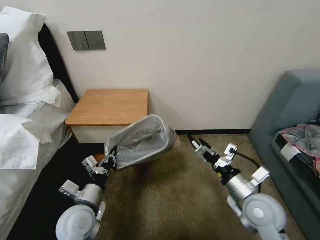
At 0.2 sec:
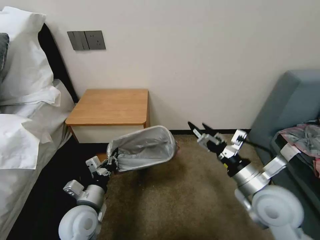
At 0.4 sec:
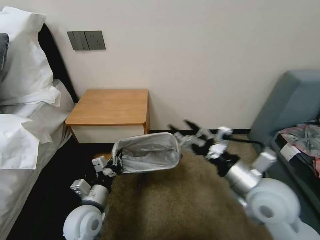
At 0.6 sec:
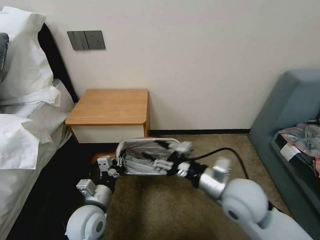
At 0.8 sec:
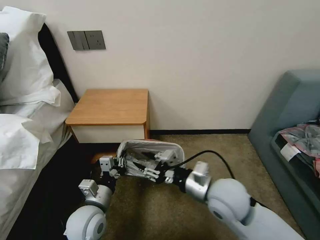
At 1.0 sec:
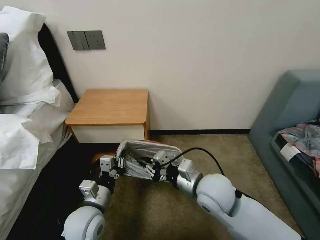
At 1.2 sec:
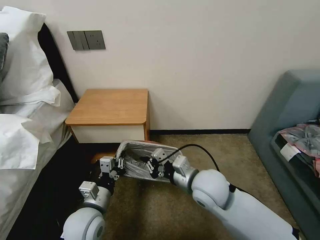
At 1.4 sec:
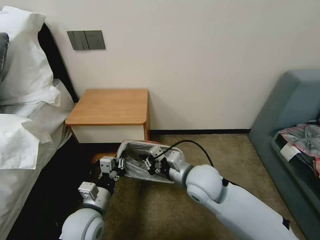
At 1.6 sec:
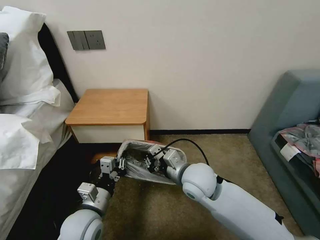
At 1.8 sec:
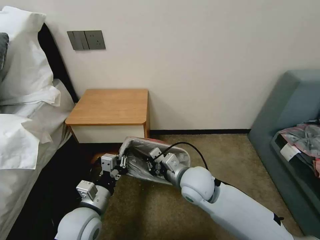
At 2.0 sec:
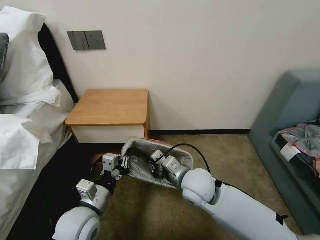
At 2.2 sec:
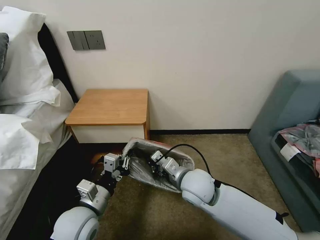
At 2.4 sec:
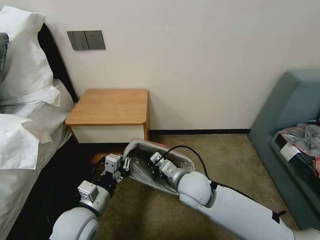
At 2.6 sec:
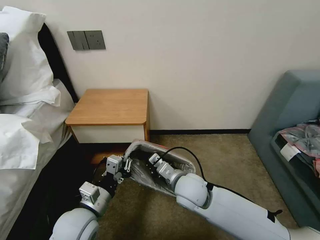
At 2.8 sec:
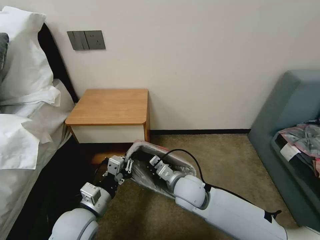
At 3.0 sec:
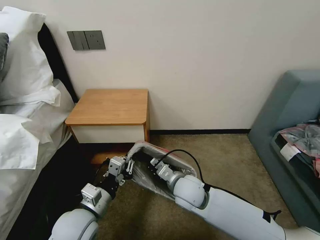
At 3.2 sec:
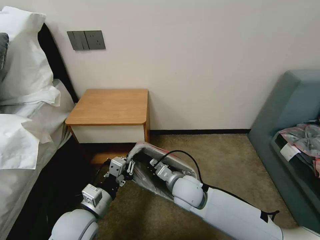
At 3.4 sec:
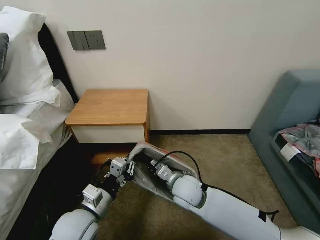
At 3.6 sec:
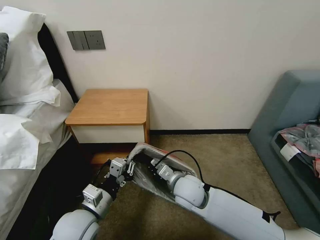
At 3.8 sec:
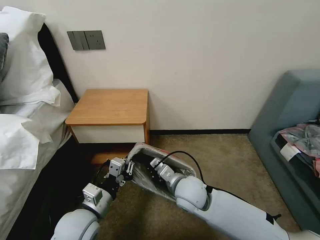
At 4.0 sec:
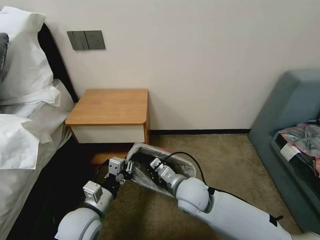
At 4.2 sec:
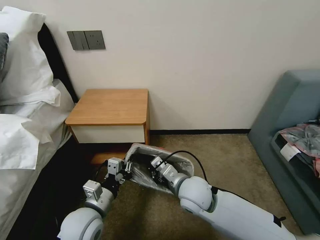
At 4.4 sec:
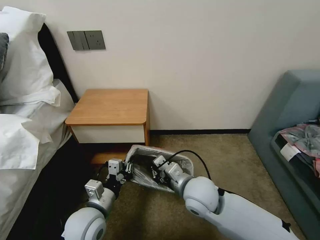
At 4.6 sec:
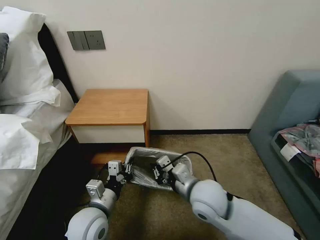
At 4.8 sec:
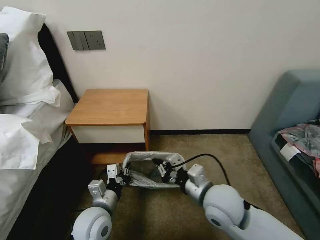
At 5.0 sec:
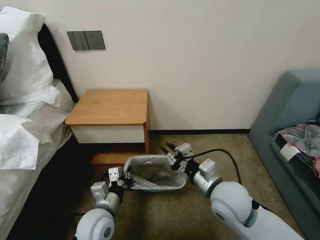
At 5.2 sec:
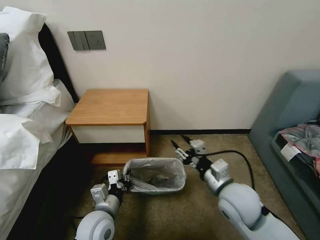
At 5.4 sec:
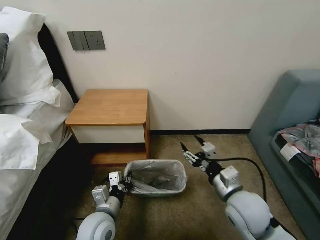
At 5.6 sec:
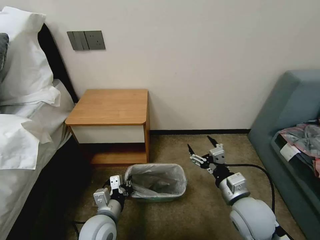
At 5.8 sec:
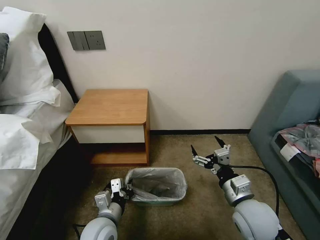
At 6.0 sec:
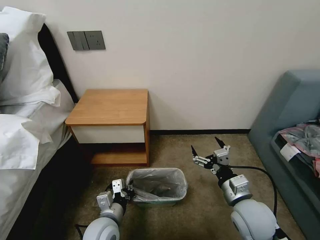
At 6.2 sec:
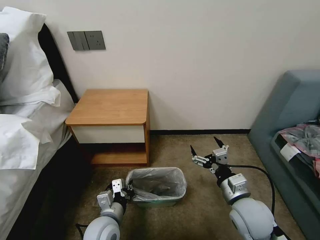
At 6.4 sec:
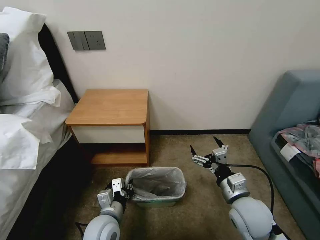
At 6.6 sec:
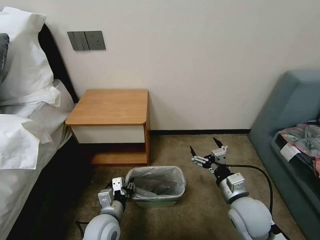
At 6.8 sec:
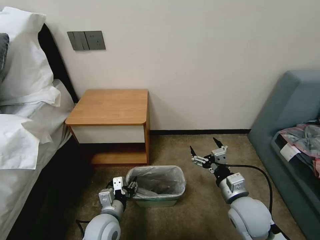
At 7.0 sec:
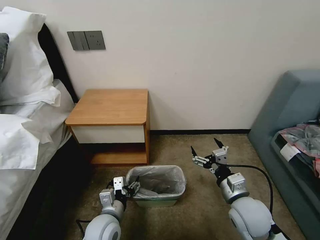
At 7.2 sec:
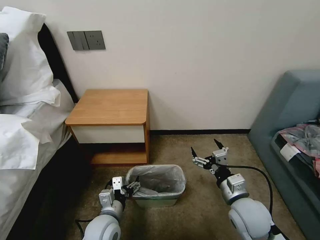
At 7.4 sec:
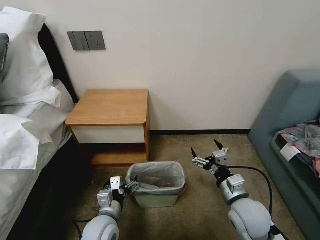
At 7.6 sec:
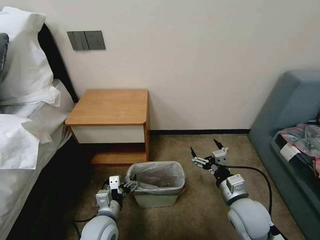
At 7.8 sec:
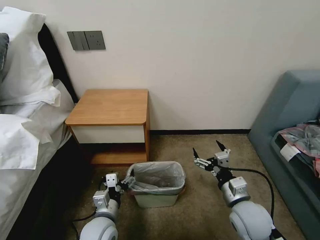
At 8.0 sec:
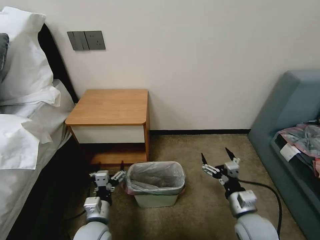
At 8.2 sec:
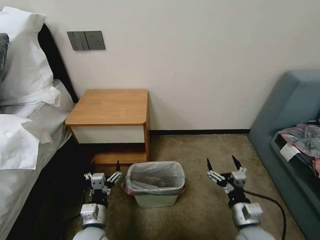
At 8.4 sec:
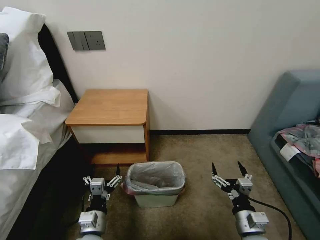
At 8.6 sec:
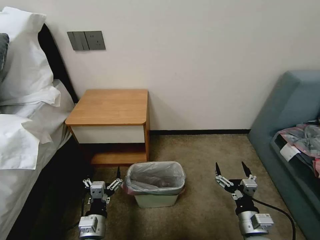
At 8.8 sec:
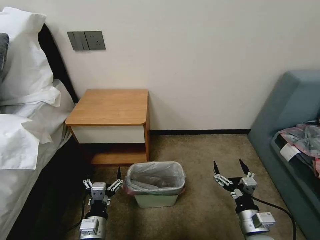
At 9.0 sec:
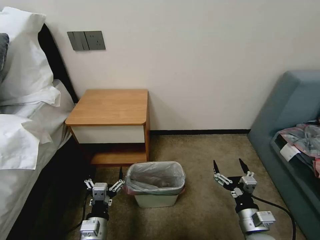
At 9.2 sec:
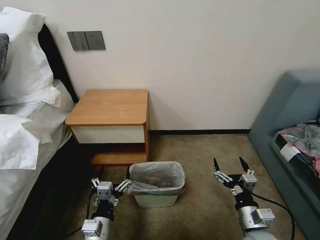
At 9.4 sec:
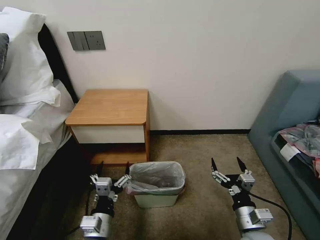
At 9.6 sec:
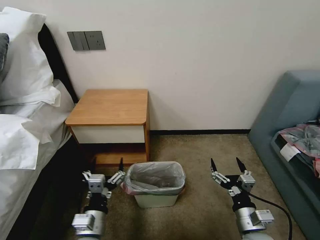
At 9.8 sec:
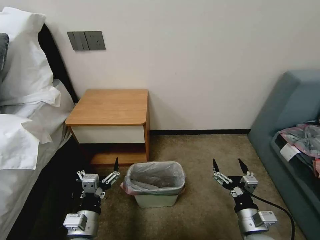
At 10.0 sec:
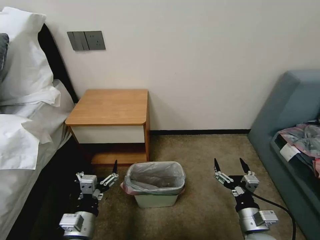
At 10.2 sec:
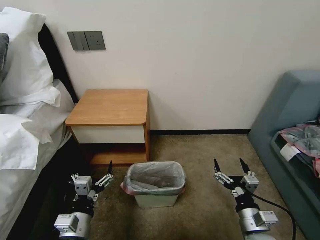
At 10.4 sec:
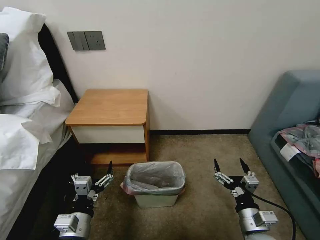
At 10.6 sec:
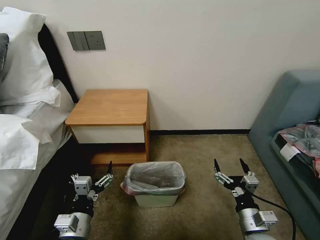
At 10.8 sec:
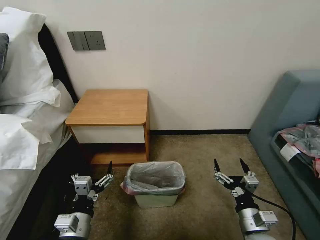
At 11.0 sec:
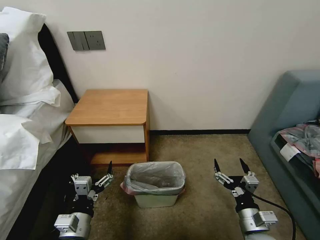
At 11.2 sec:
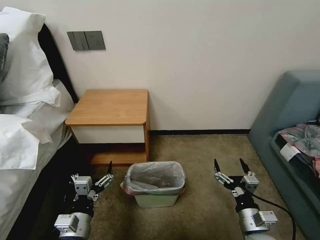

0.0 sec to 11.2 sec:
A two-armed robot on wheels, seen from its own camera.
Task of the whole recording: Pick up the garbage bag from the table and place it over the trash can.
0.0 sec to 1.6 sec: The right gripper is displaced to the left and forward by roughly 20 cm, and closes.
1.6 sec to 3.2 sec: The right gripper heads downward, covering about 5 cm.
3.2 sec to 4.8 sec: The right gripper travels to the right, upward and backward by roughly 10 cm.
4.8 sec to 6.4 sec: The right gripper goes some 10 cm to the right, and opens its fingers.
6.4 sec to 8.0 sec: The left gripper opens up; the right gripper ends up some 5 cm from where it was.
8.0 sec to 9.6 sec: The left gripper changes place by about 5 cm.
9.6 sec to 11.2 sec: There are only small adjustments of the grippers.

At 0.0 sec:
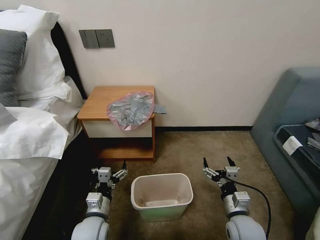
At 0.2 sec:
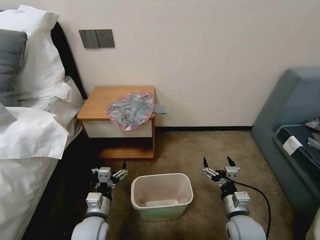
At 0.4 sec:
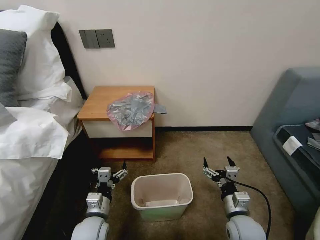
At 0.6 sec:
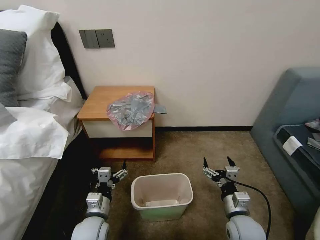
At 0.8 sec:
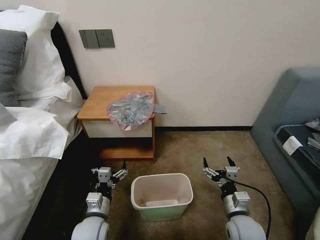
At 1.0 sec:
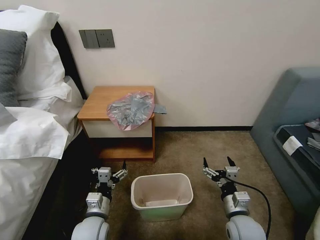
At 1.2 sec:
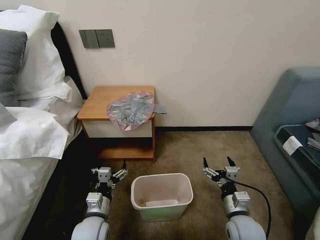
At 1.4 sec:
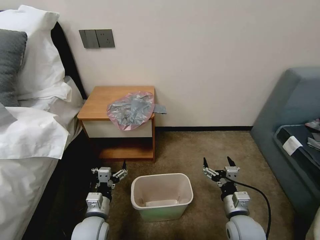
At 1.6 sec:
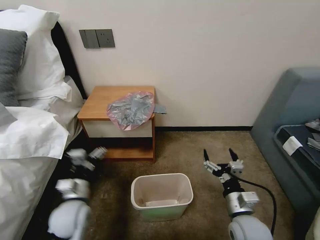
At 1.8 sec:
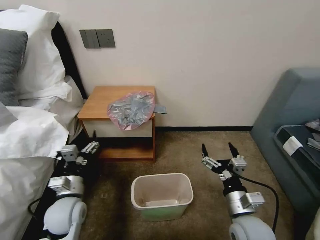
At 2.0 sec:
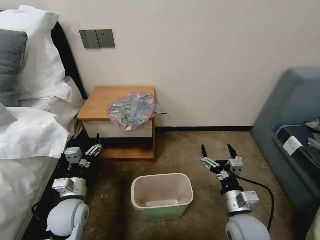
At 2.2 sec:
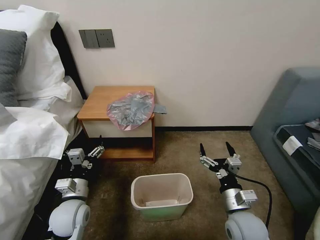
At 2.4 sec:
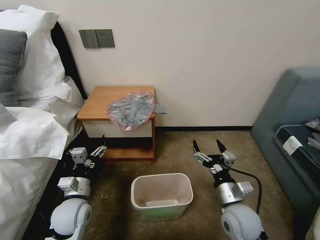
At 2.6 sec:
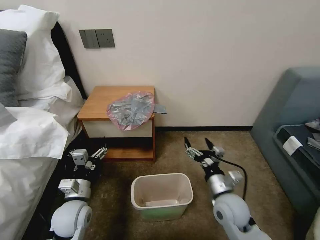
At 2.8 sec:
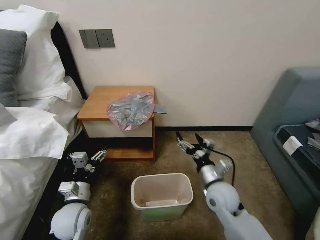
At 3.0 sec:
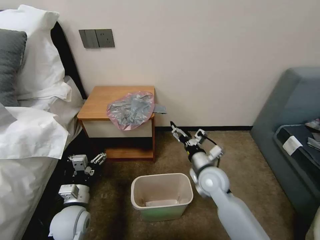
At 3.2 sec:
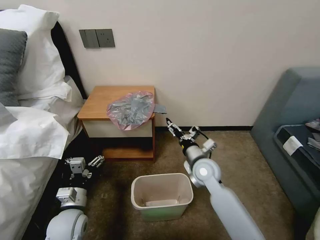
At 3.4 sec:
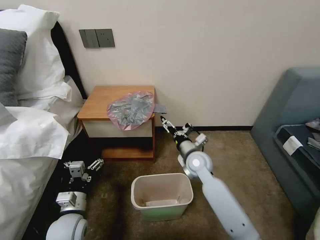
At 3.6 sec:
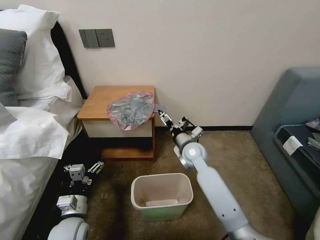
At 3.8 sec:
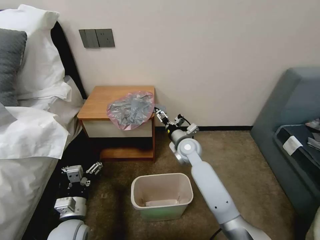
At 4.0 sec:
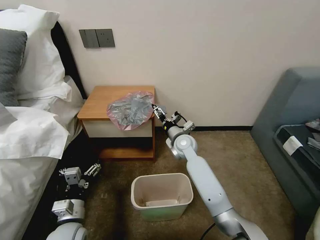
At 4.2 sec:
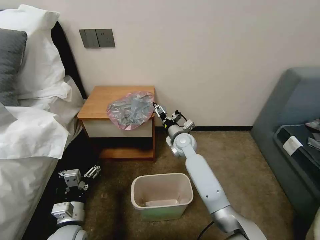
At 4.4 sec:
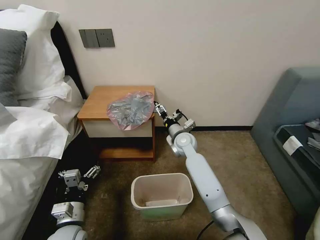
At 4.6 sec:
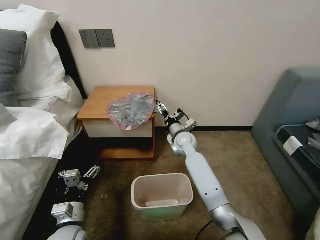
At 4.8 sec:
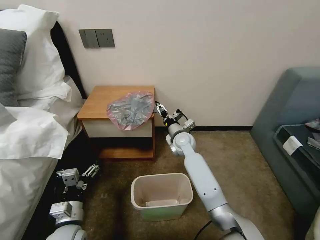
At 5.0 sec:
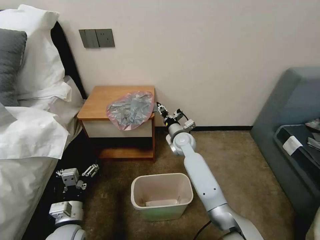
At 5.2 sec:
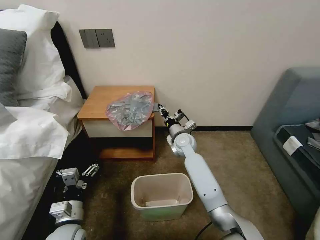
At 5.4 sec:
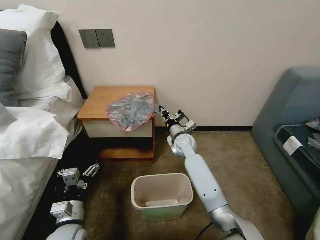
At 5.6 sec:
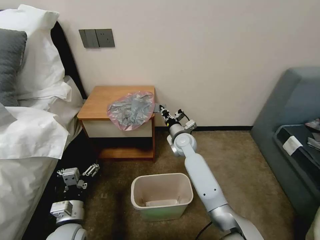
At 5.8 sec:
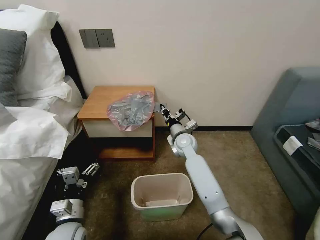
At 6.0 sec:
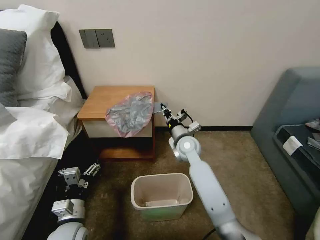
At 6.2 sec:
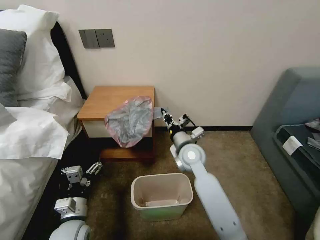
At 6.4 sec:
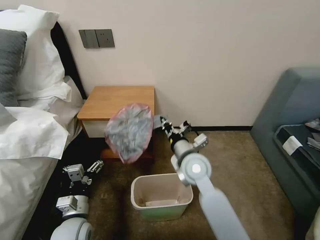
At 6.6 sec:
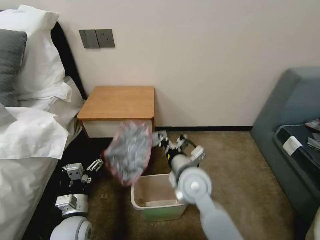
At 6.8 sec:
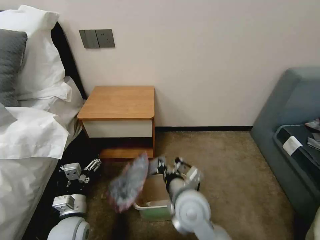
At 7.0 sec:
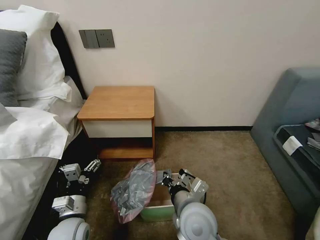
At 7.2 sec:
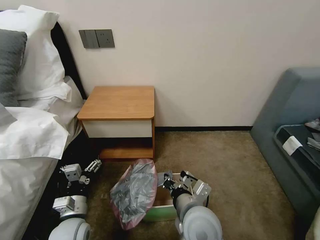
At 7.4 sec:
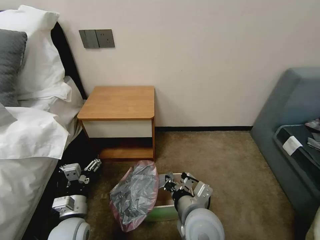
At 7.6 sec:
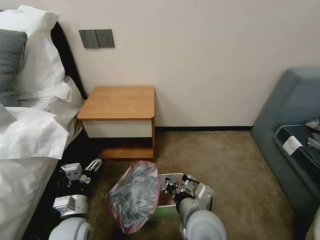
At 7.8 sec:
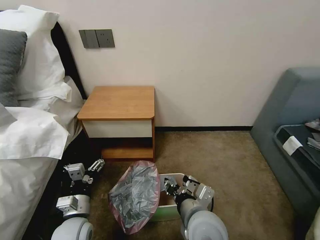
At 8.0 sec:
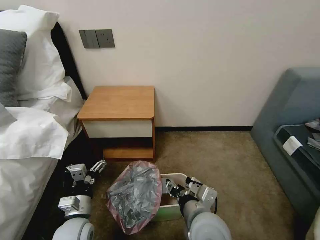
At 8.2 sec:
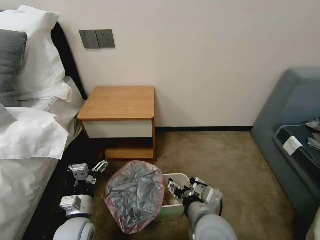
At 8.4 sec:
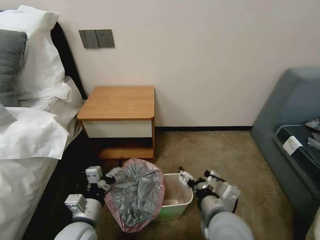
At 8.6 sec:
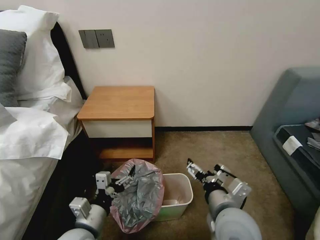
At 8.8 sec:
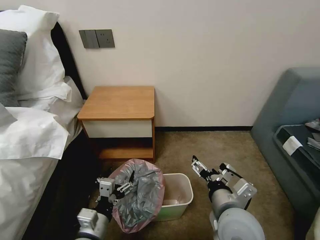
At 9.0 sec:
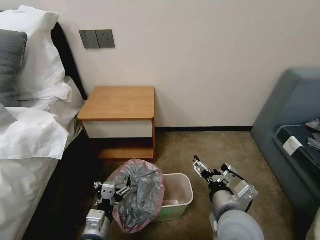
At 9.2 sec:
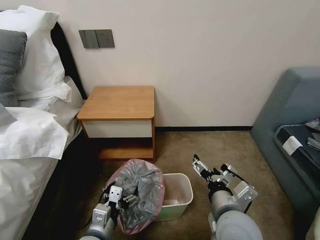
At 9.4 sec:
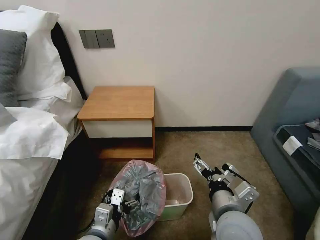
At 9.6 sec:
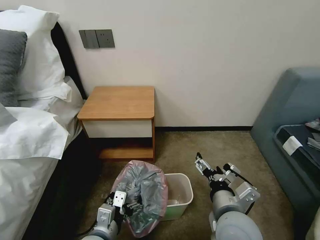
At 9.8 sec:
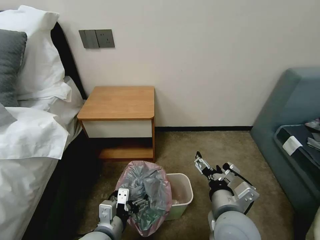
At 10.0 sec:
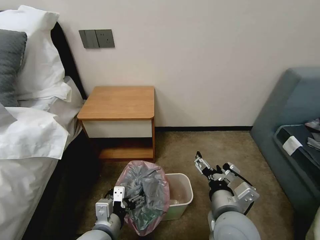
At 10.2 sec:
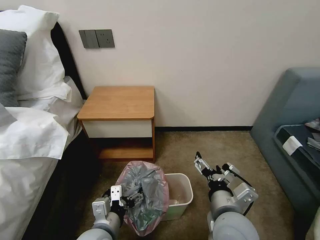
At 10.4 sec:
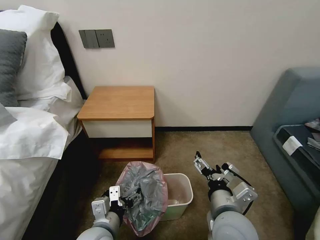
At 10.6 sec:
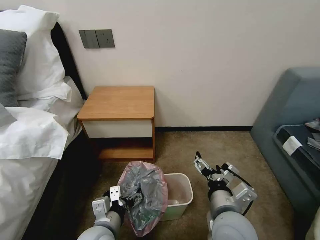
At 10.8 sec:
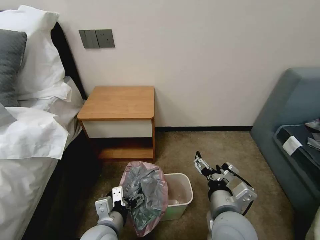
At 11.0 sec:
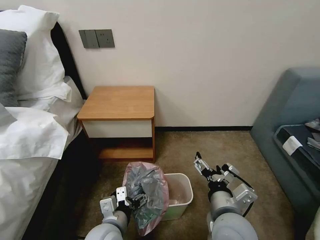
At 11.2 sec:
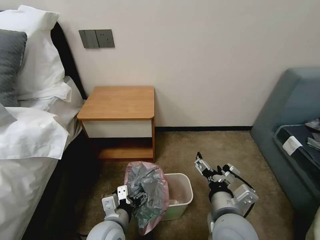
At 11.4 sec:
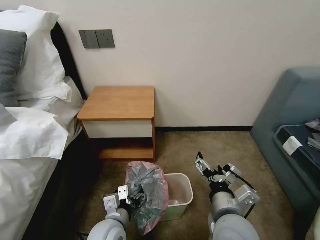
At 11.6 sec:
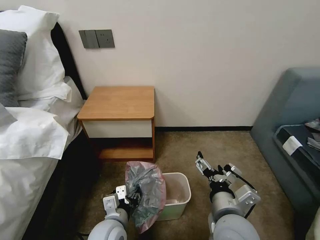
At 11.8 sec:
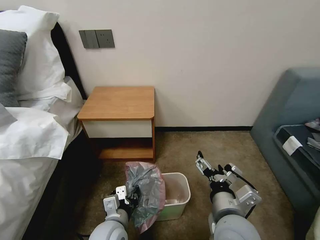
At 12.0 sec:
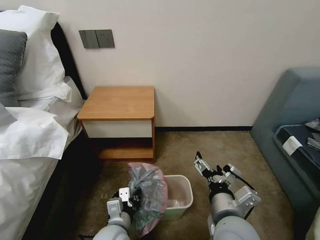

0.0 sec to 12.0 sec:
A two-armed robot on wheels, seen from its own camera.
Task of the whole recording: Pick up the garbage bag from the table and place it over the trash can.
1.6 sec to 3.0 sec: The right gripper is displaced forward and to the left by approximately 15 cm.
3.0 sec to 4.4 sec: The right gripper moves forward and to the left, roughly 20 cm, while the left gripper travels backward by about 5 cm.
4.4 sec to 6.0 sec: The right gripper closes up.
6.0 sec to 7.6 sec: The right gripper is displaced backward by some 25 cm.
7.6 sec to 9.0 sec: The right gripper travels to the right by some 5 cm, and opens its fingers; the left gripper heads to the right and backward, covering roughly 10 cm.
10.4 sec to 12.0 sec: The left gripper moves roughly 5 cm, and closes its fingers.
